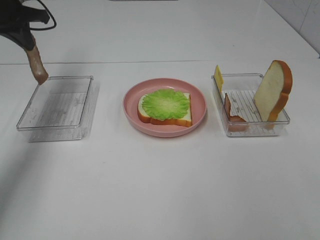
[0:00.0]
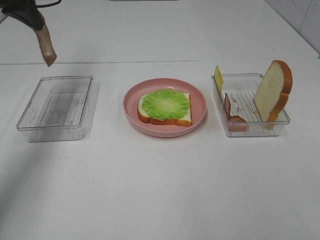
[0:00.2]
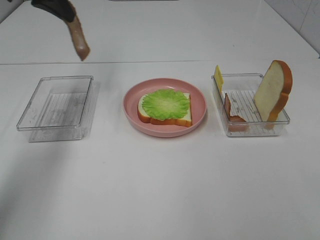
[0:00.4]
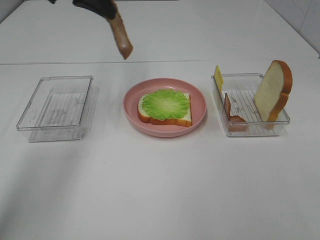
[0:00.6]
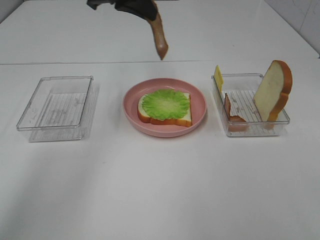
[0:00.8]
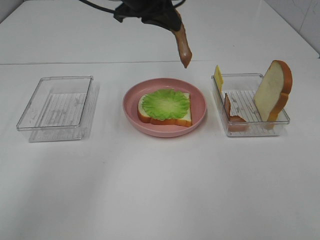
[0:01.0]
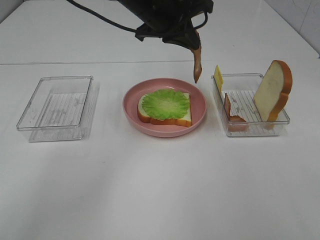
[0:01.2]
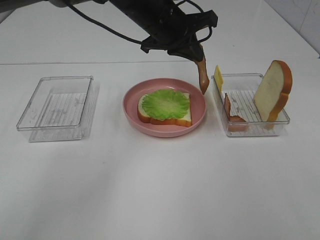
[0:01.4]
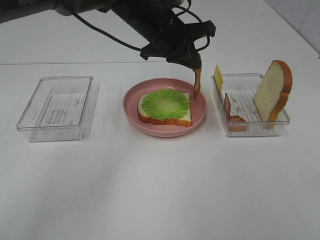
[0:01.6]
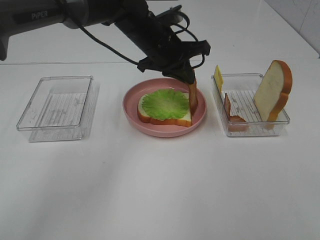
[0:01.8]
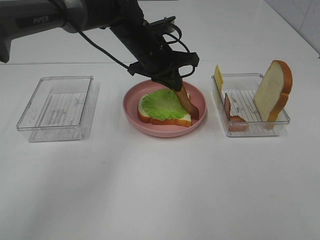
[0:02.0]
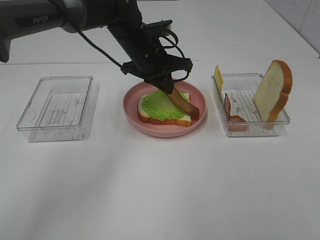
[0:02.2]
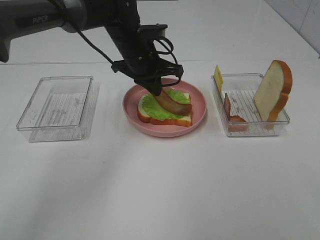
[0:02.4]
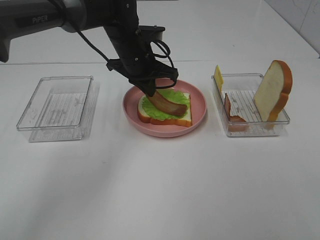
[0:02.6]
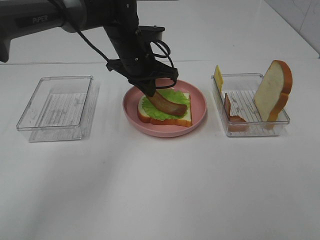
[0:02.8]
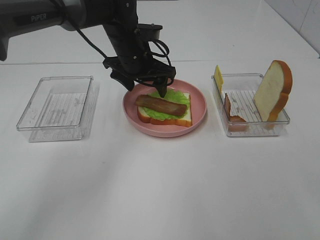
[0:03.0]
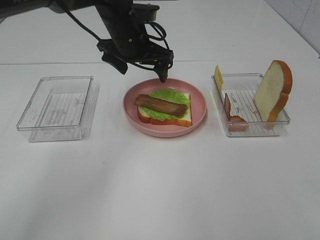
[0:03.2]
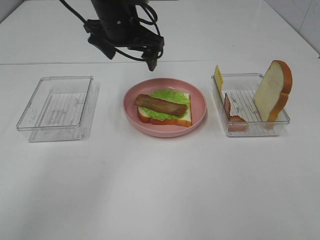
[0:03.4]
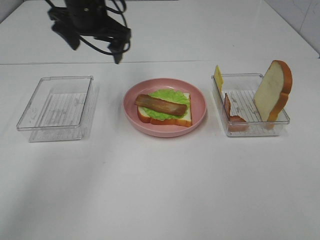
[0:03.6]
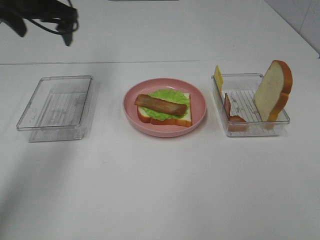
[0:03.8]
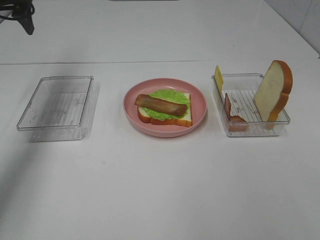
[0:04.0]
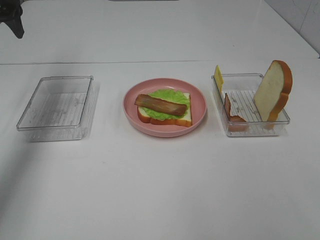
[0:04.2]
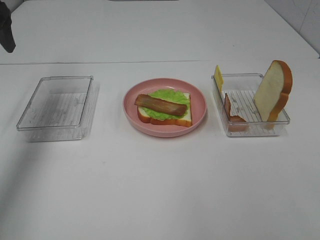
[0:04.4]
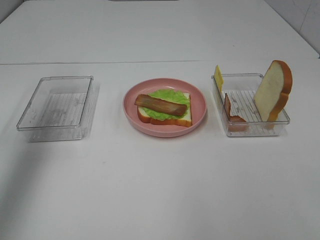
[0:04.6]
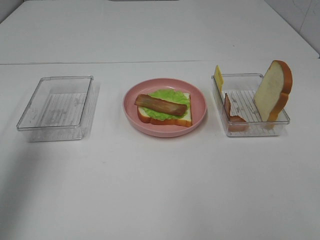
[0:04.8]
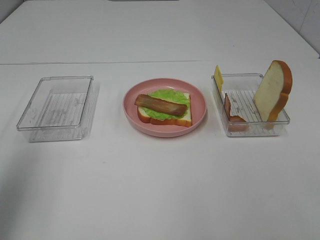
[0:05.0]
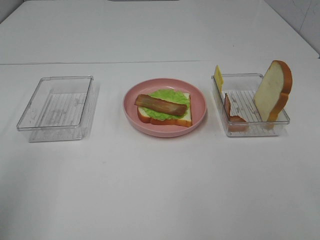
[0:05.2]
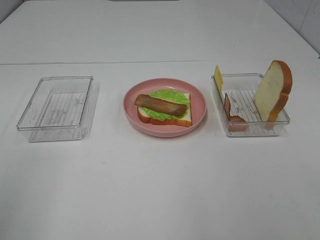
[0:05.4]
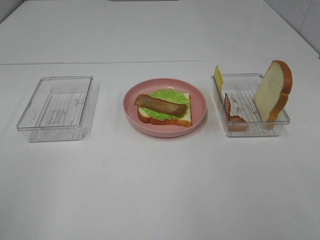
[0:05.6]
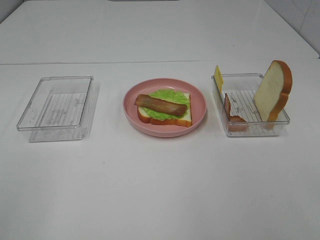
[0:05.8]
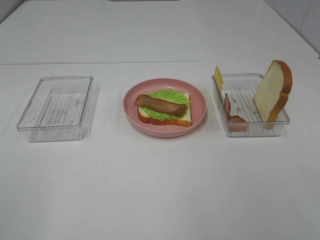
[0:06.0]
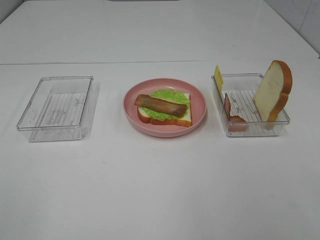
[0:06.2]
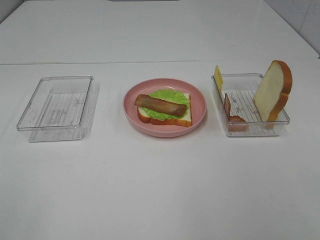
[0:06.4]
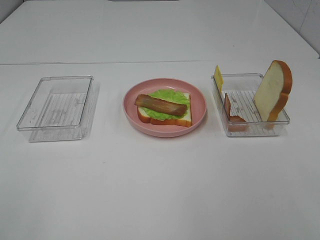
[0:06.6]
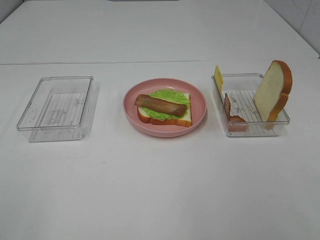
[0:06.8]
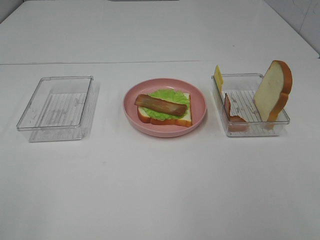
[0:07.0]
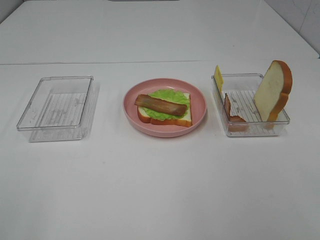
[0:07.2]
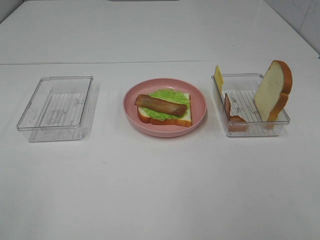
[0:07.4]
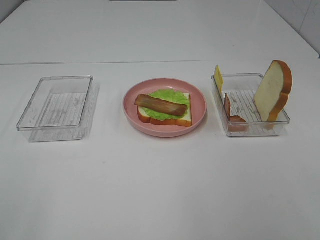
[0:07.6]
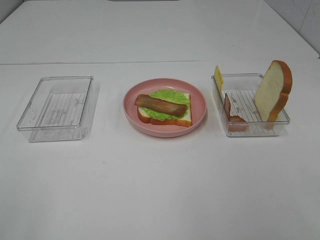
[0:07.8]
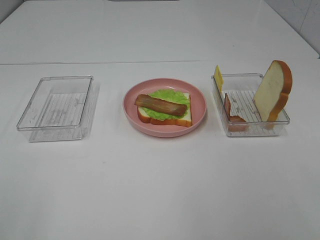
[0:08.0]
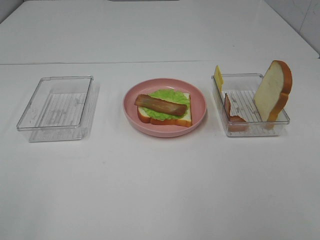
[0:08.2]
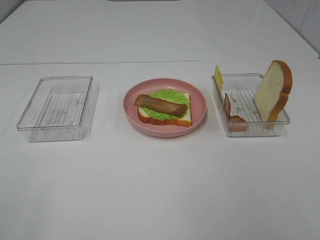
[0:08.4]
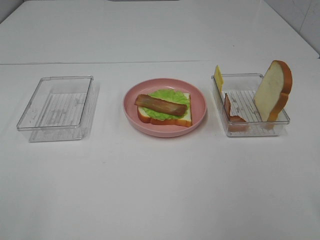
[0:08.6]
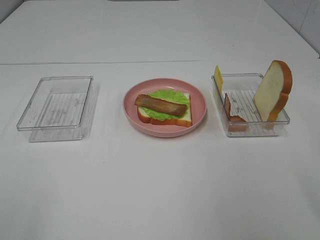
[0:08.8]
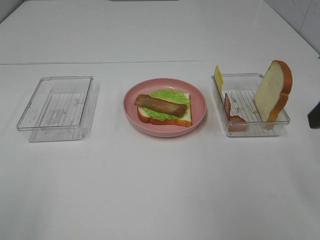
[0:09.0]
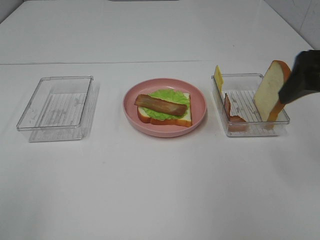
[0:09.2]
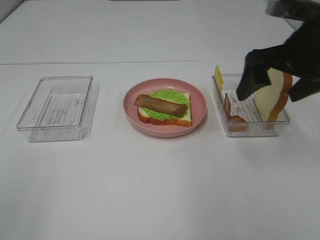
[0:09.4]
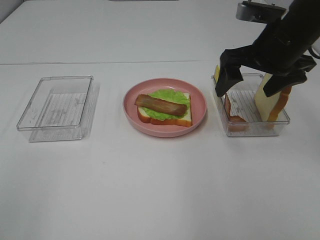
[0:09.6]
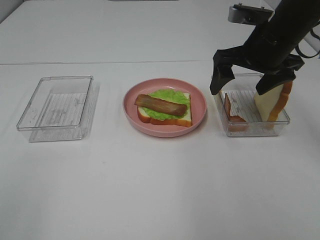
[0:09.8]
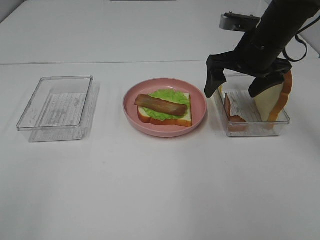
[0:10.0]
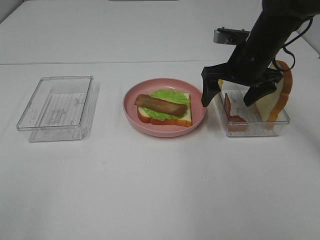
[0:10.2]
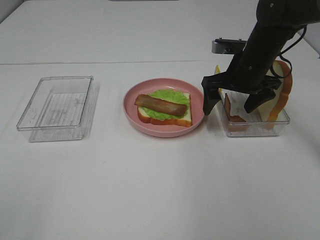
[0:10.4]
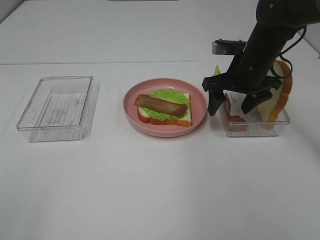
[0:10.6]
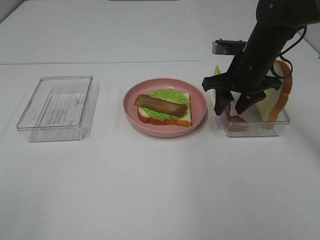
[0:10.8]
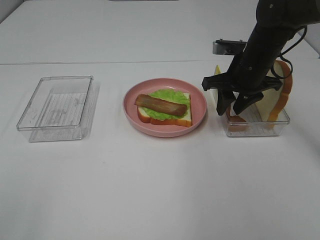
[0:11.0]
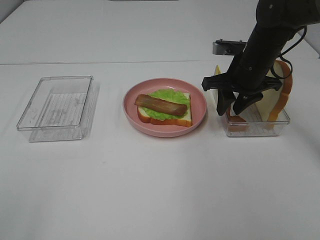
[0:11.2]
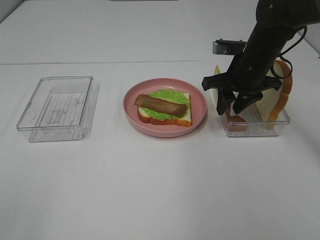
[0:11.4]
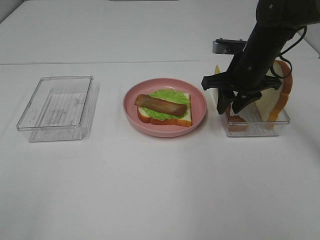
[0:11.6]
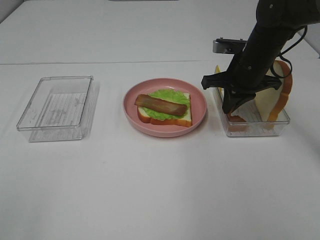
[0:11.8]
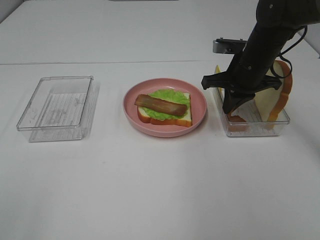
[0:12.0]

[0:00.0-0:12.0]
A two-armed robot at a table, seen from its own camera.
Task of the whole recording: Make sandwiches.
Step, 0:00.0 to 0:03.0: Left hand:place bacon on lettuce slice.
0:00.0 to 0:01.6: The left gripper goes some 30 cm to the right.
0:01.6 to 0:03.0: The left gripper moves approximately 5 cm, and opens up.
0:03.0 to 0:04.4: The left gripper shifts about 30 cm to the left and upward.
0:04.4 to 0:06.0: The left gripper is displaced backward by about 40 cm.
0:09.0 to 0:10.4: The right gripper goes roughly 25 cm forward, downward and to the left.
0:10.4 to 0:12.0: The right gripper closes its fingers.

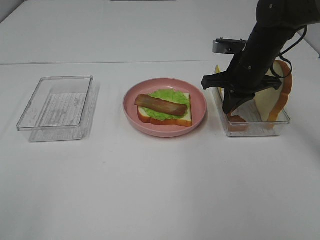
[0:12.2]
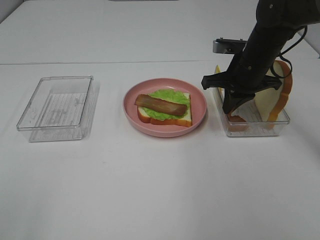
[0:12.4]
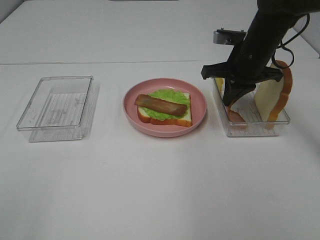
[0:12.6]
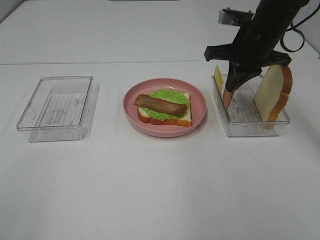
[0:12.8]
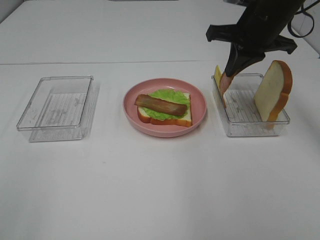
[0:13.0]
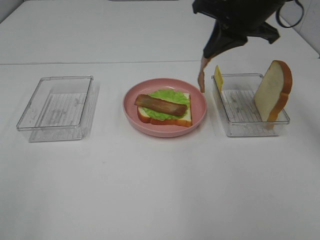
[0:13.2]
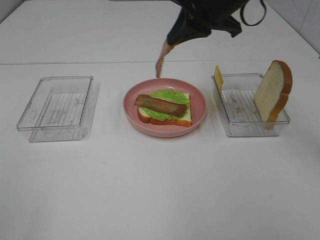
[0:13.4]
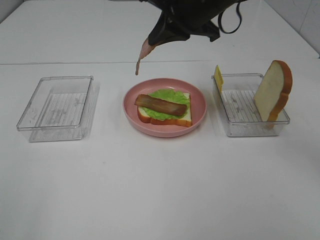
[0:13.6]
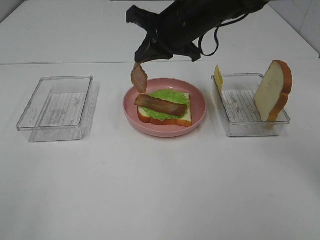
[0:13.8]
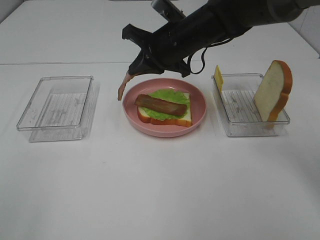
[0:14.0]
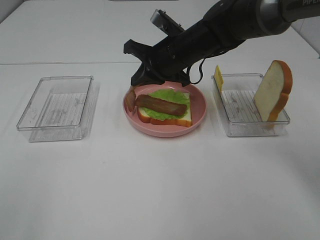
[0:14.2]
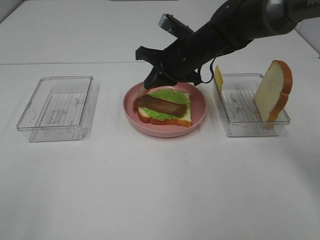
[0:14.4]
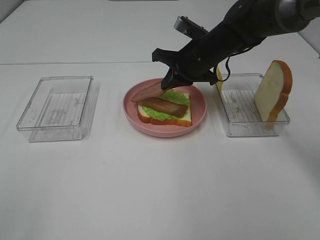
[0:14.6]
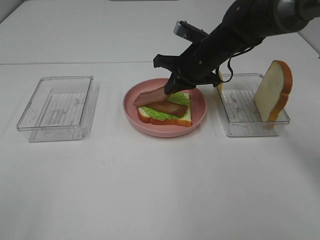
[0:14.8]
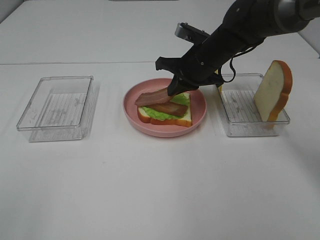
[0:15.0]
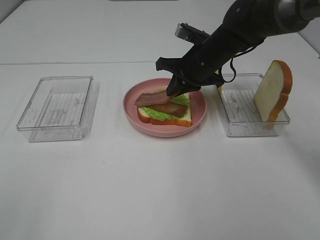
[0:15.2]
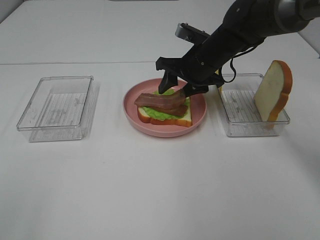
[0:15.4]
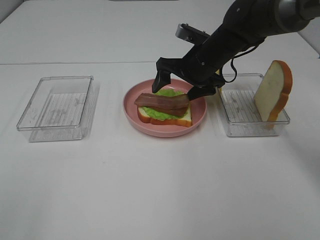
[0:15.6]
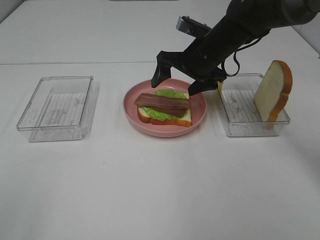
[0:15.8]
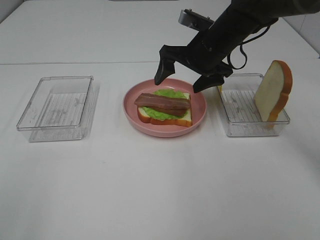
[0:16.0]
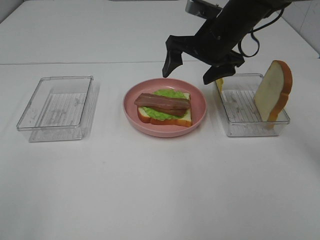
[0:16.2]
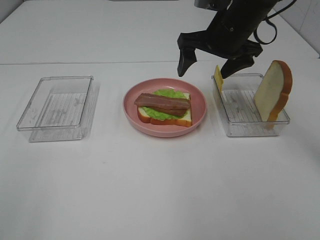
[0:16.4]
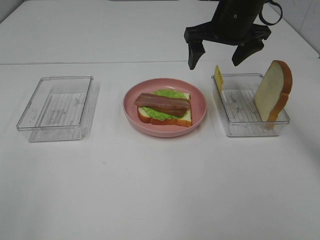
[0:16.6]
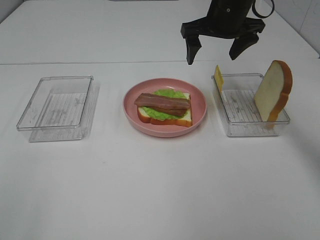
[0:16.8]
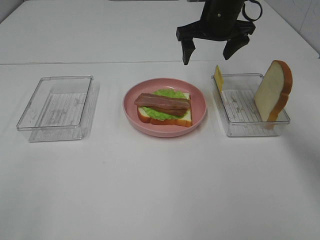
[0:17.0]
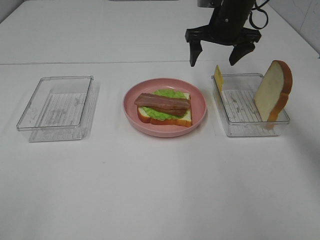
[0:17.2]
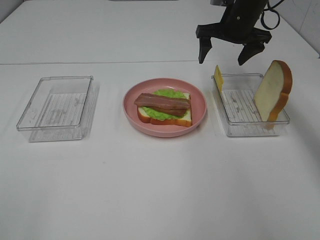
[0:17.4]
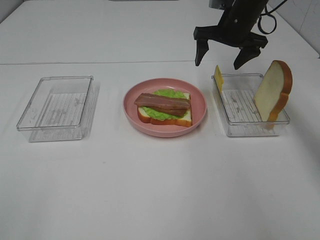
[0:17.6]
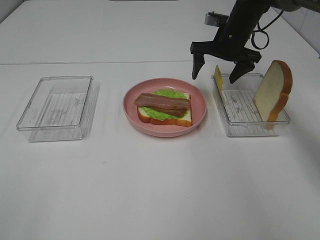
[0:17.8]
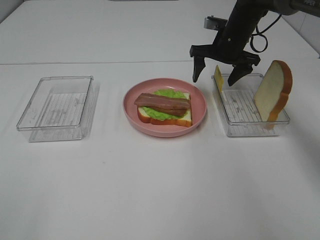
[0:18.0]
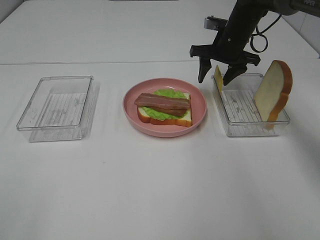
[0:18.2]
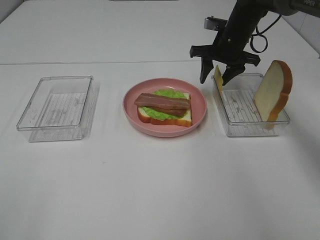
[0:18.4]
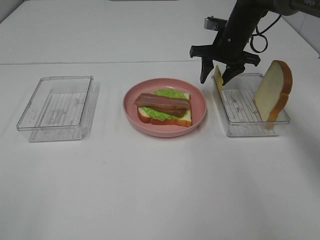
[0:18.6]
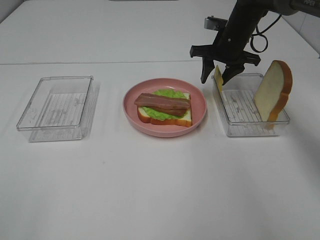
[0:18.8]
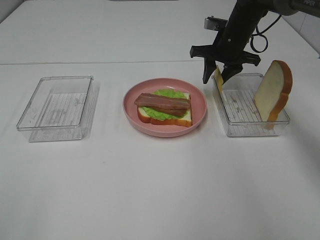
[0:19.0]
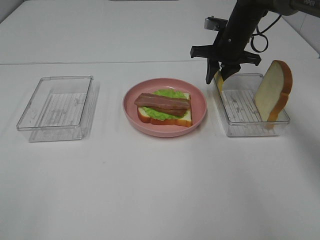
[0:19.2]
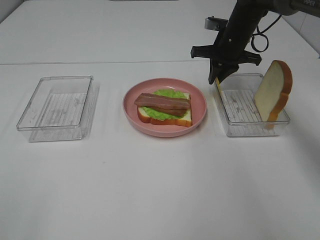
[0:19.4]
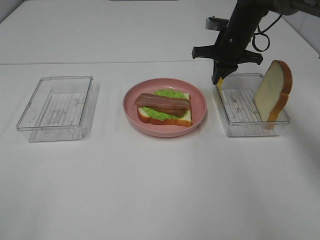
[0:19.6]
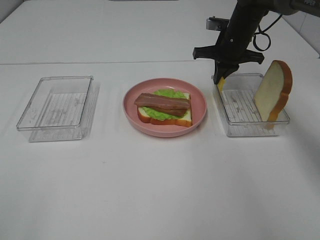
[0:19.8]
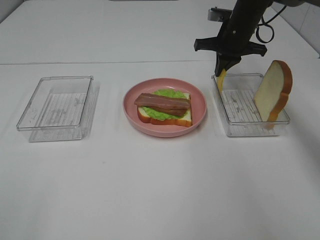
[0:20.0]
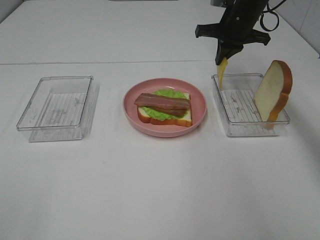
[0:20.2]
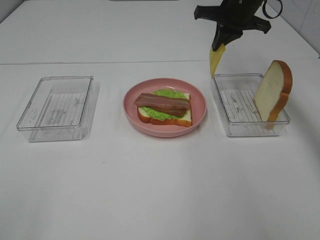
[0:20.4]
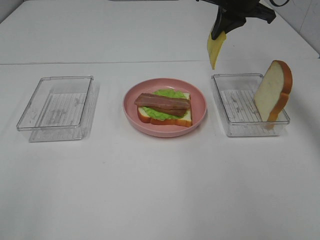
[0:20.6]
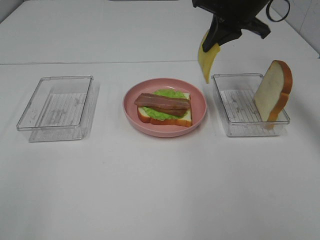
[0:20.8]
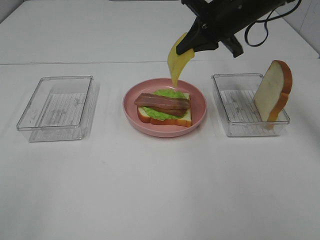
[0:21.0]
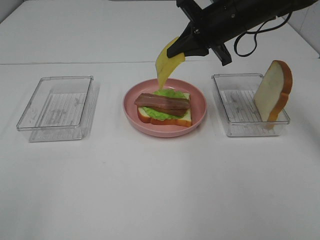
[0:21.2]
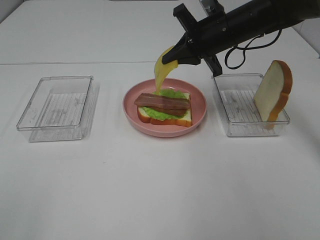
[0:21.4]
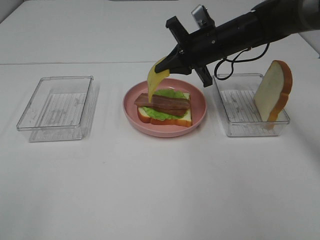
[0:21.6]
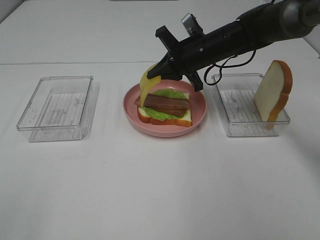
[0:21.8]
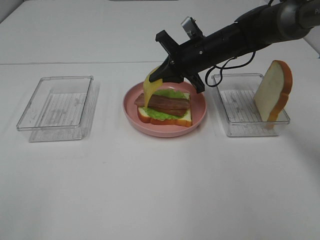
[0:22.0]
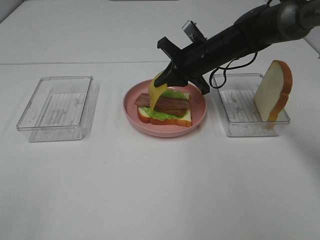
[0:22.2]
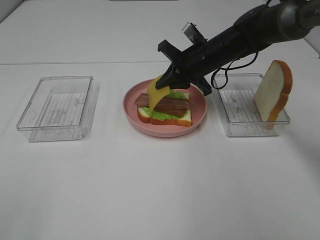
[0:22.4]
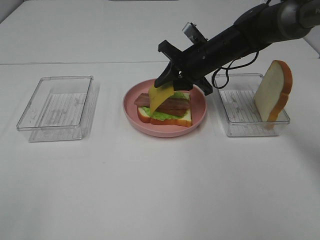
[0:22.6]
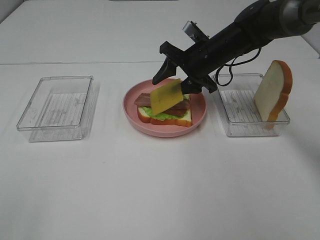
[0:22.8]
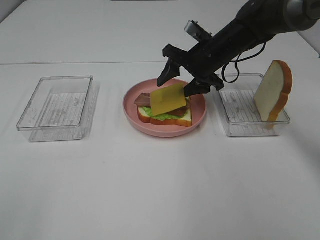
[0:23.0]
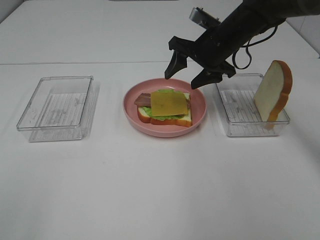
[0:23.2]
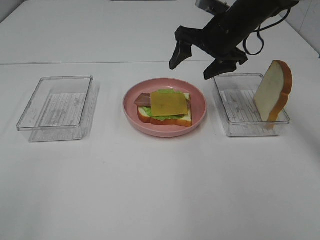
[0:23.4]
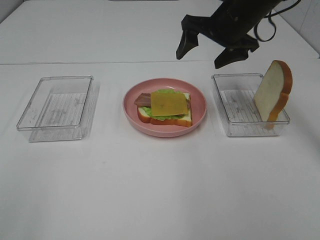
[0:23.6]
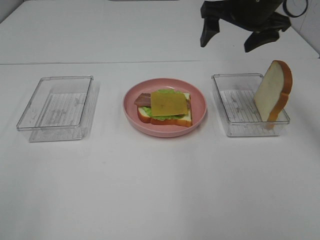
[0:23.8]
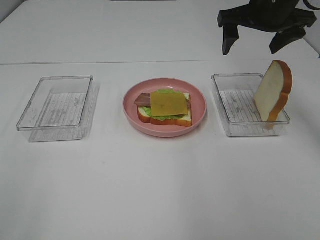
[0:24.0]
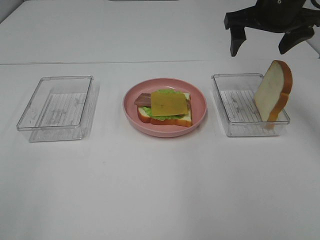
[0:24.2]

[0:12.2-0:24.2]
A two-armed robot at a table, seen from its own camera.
Task of the whole recording: Make sandwiches.
Step, 0:12.8 to 0:15.8: Right hand:place bacon on bacon.
Step, 0:16.0 to 0:20.0: Right hand:grab the cheese slice.
Step, 0:20.2 to 0:23.2: Right hand:place the cheese slice on top of the bacon.
0:12.2 to 0:13.8: The right gripper is displaced to the left and upward by about 15 cm.
0:13.8 to 0:15.2: The right gripper shifts approximately 10 cm downward.
0:15.2 to 0:16.6: The right gripper moves upward, approximately 10 cm, and opens up.
0:16.6 to 0:18.2: The right gripper goes about 10 cm downward and forward.
0:18.2 to 0:19.8: The right gripper closes up.
0:19.8 to 0:21.2: The right gripper shifts some 10 cm backward and upward.
0:21.2 to 0:22.6: The right gripper moves downward, some 10 cm.
0:22.6 to 0:24.2: The right gripper goes some 15 cm upward and to the right, and opens its fingers.
